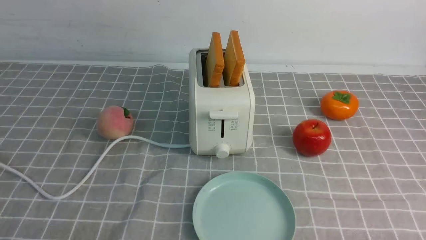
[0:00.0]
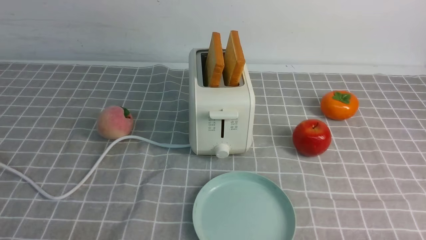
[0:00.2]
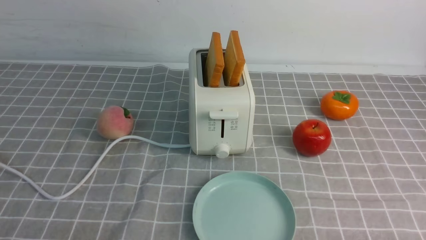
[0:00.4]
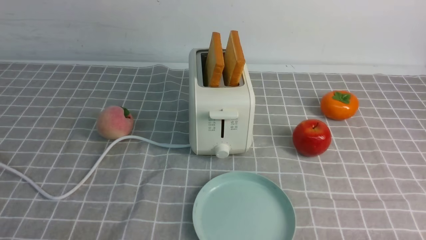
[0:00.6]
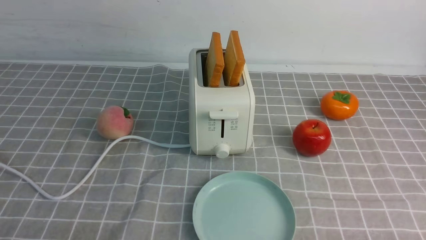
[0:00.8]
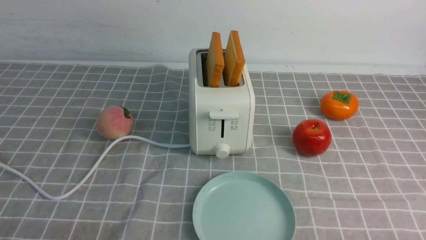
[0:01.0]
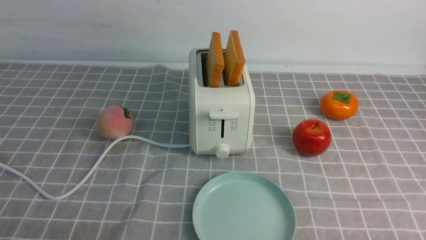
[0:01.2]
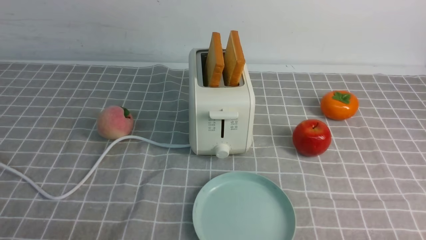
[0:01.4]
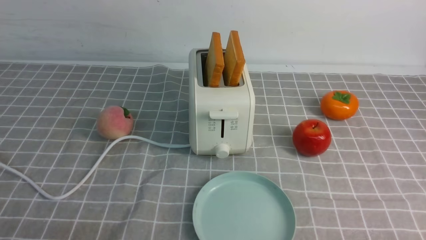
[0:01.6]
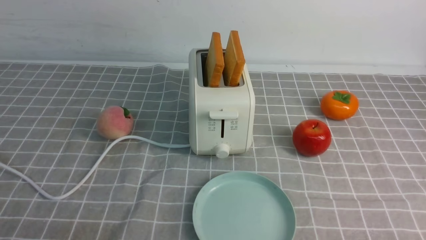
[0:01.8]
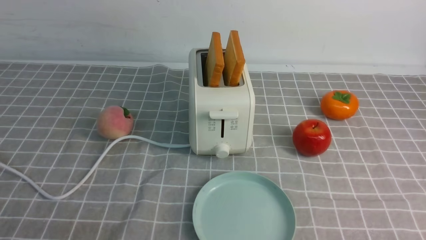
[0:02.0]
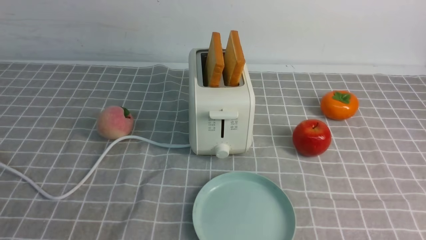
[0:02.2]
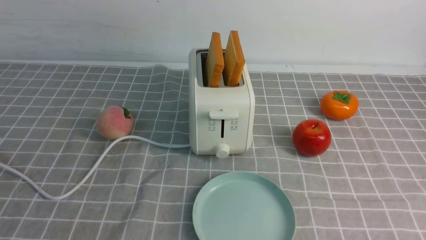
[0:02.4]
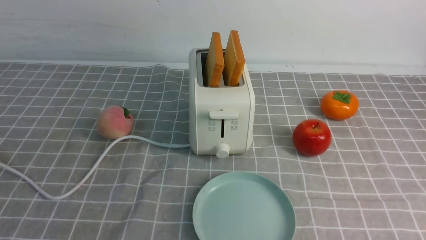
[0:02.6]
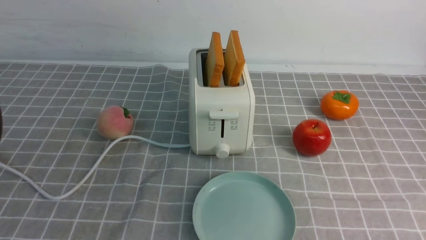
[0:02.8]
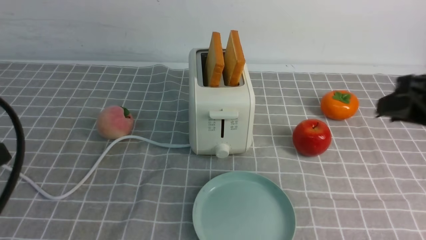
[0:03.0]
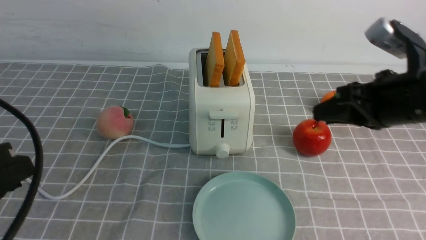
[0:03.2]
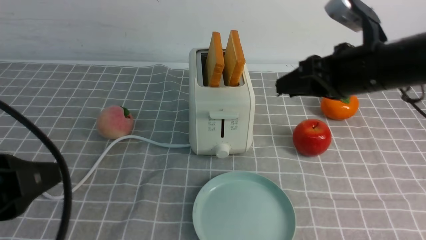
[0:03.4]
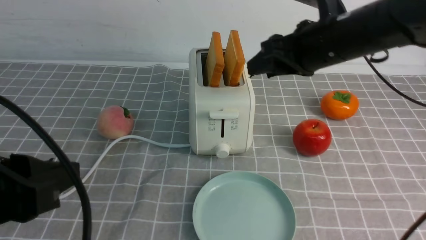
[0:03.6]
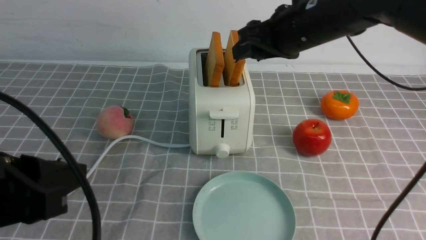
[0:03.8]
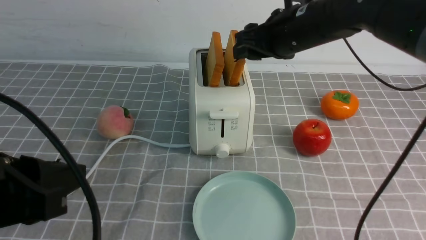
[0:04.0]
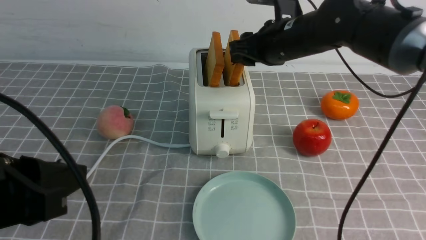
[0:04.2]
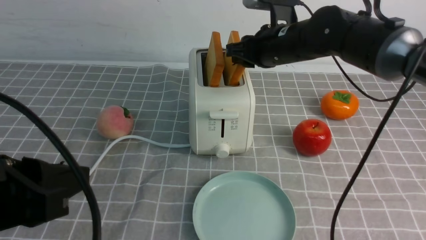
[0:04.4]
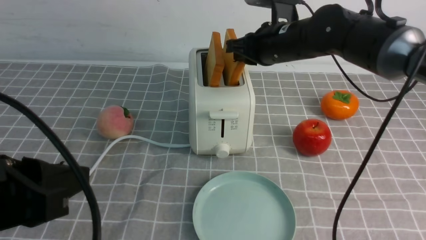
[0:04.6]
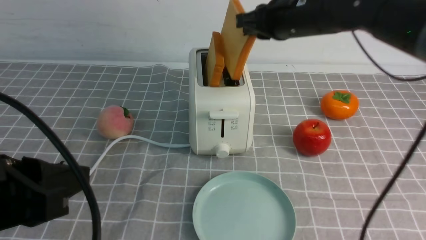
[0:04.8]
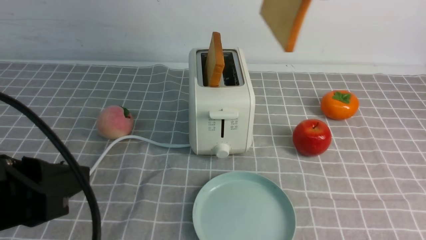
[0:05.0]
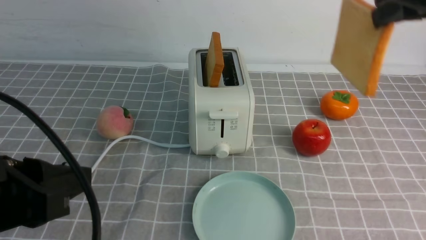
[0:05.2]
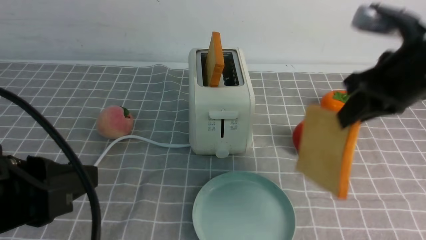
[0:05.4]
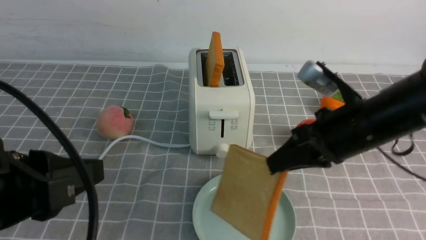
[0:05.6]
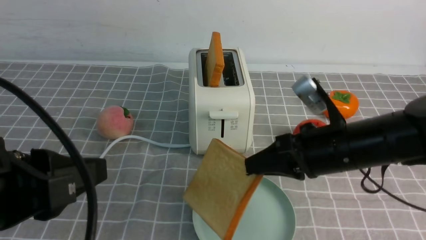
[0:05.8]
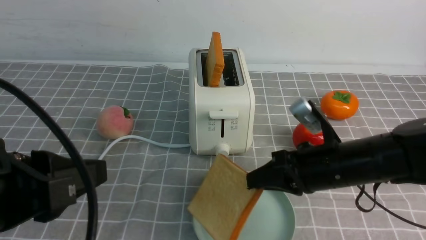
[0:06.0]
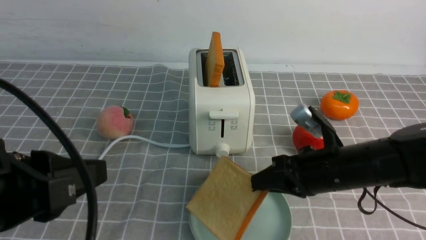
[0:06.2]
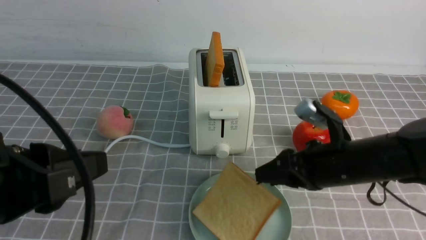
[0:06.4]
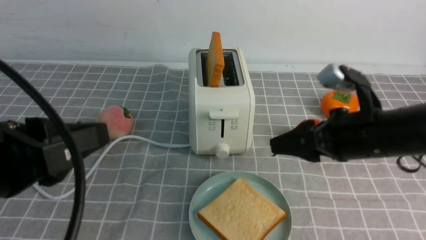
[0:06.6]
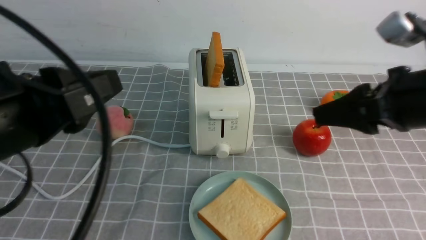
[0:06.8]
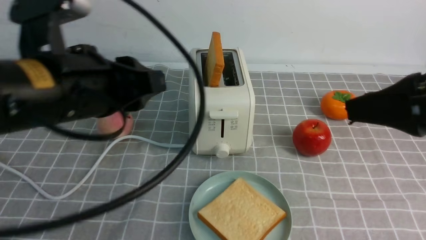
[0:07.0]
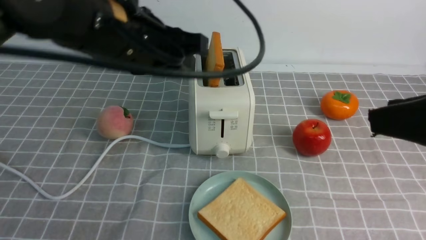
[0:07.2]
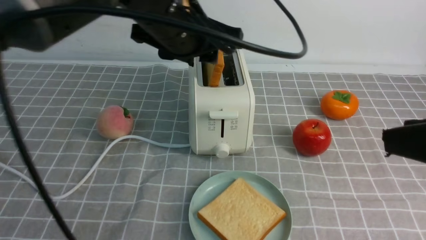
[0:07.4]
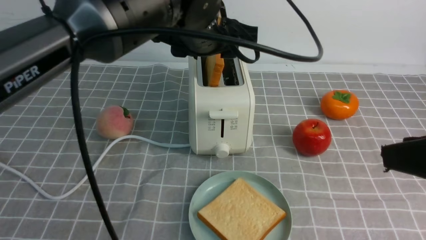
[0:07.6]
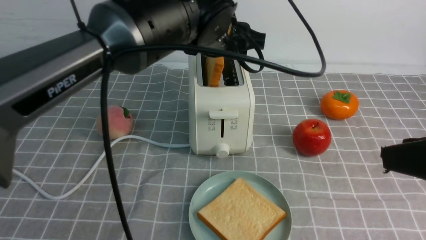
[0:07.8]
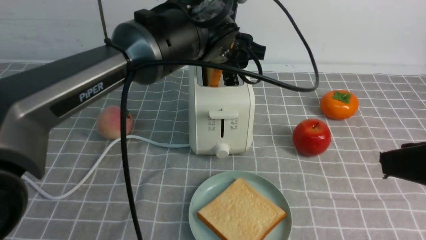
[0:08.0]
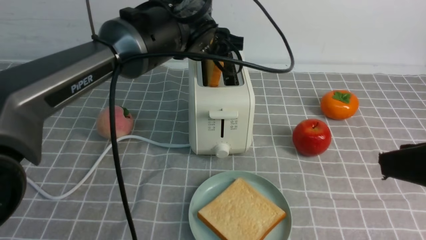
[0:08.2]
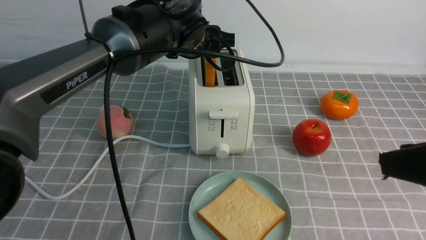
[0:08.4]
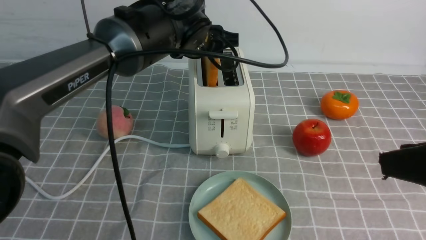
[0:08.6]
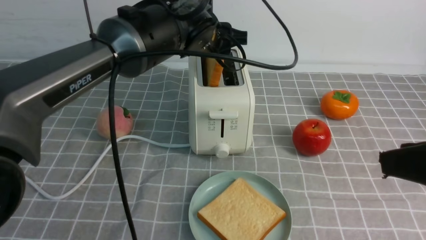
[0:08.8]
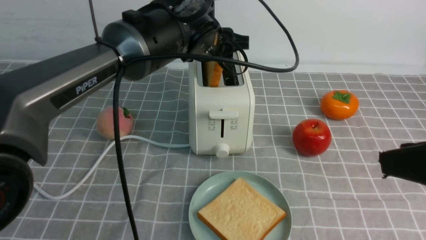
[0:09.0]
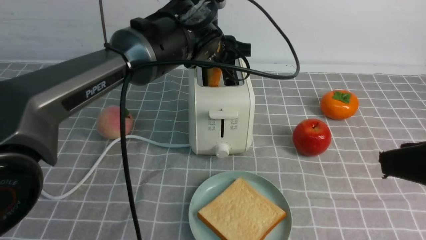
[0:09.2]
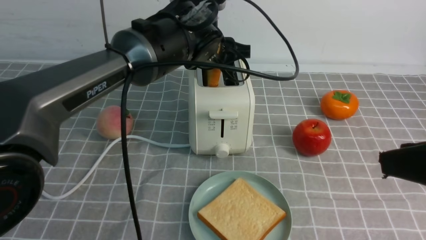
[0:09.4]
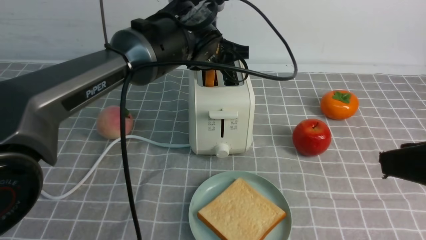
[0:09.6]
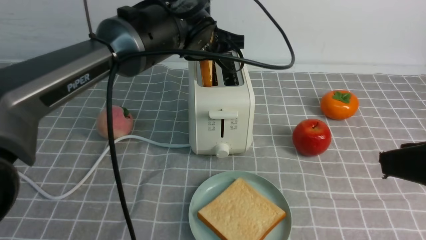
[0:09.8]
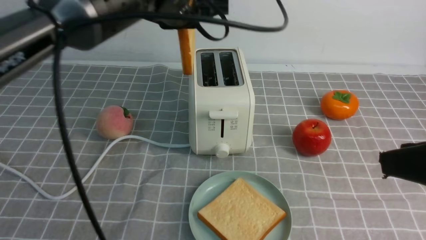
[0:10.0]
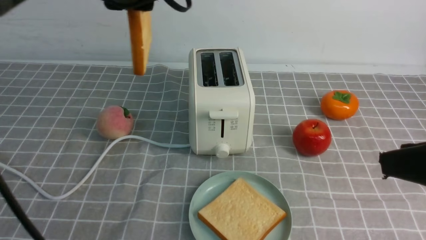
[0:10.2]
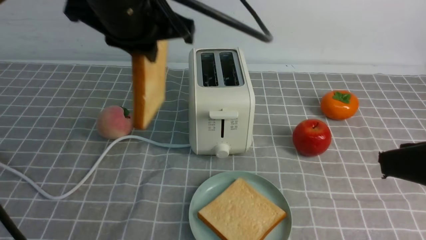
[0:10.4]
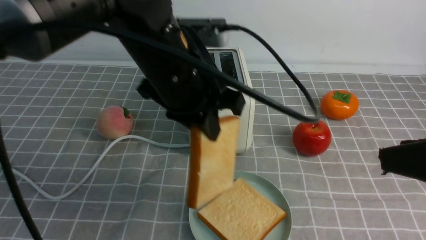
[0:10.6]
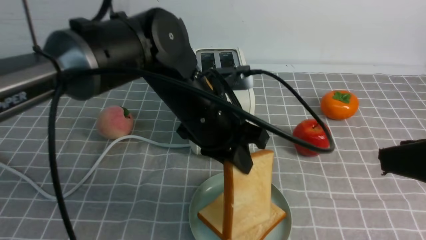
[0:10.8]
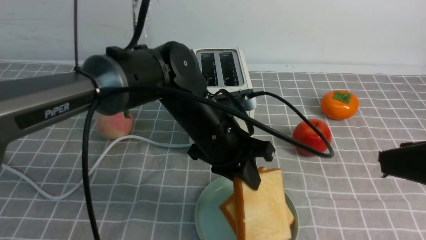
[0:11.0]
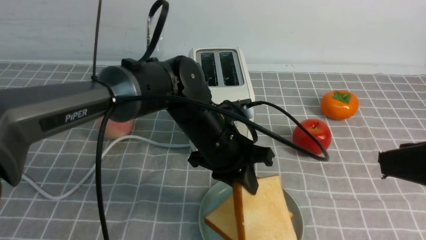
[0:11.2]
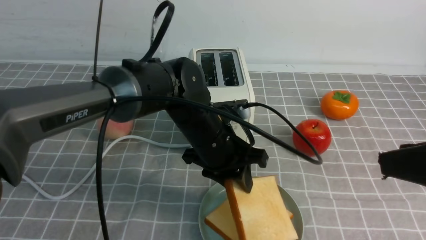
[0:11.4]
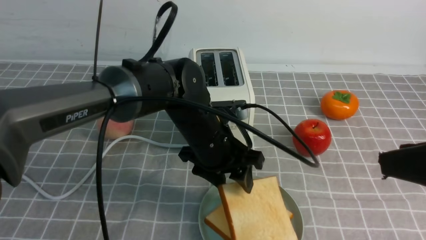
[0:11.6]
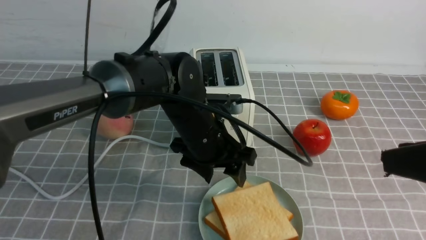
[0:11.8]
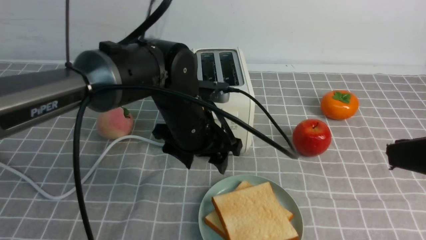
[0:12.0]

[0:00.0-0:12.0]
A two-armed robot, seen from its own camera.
Task of the whole recording: take toasted bread from bread machine on grey coffee table place on plate.
Step, 0:00.0 to 0:05.0: use the right arm to take out a slice of bread.
Step, 0:05.2 to 0:06.6: use the right arm to put a slice of bread into the plate.
Step, 0:06.8 to 0:10.0: use the left arm to take out a slice of bread.
Step, 0:10.2 to 0:11.8: use the left arm to put a slice of bread into the empty plate.
0:01.6 to 0:03.0: The right gripper heads forward and upward, covering some 25 cm. The left gripper moves upward and forward, about 15 cm.
0:03.0 to 0:04.4: The right gripper heads forward and to the left, covering approximately 25 cm, and opens, then closes once more. The left gripper ends up about 5 cm from where it was.
0:04.4 to 0:06.0: The right gripper moves backward and downward, some 20 cm.
0:06.0 to 0:07.6: The left gripper travels forward and to the right by approximately 30 cm, while the right gripper goes some 25 cm upward, backward and to the right, and opens its fingers.
0:07.6 to 0:09.0: The left gripper heads forward and downward, covering approximately 10 cm.
0:09.0 to 0:10.4: The left gripper is displaced backward, upward and to the left by some 15 cm, and closes its fingers.
0:10.4 to 0:12.0: The right gripper closes up. Meanwhile the left gripper travels downward by approximately 15 cm, and opens its fingers.

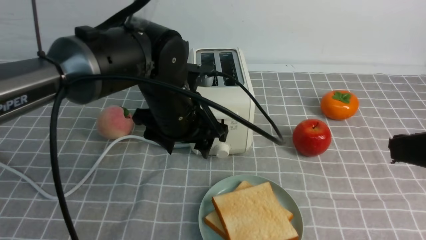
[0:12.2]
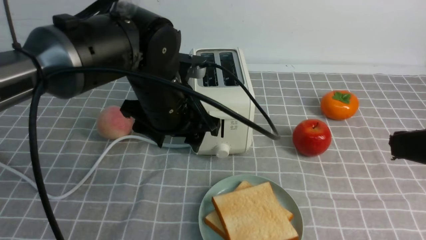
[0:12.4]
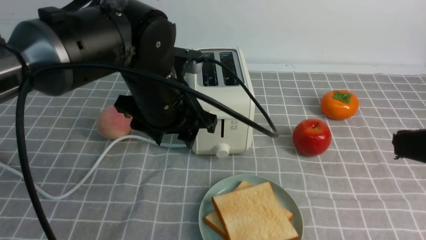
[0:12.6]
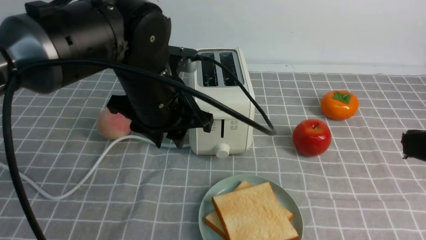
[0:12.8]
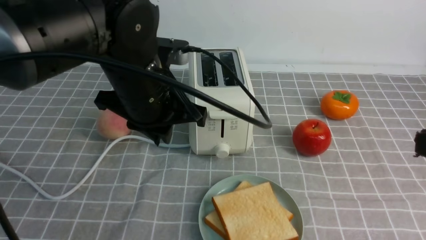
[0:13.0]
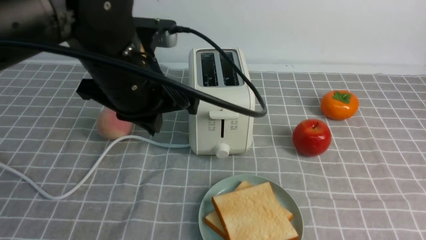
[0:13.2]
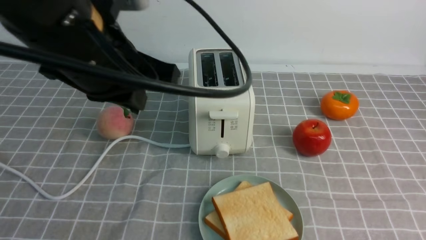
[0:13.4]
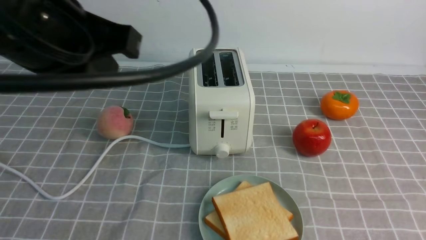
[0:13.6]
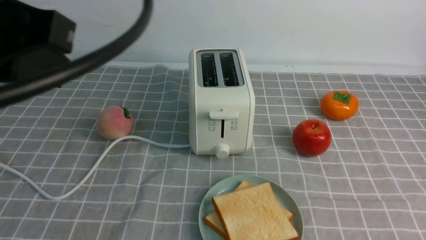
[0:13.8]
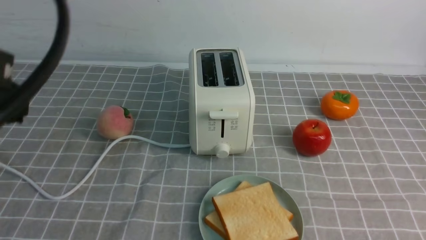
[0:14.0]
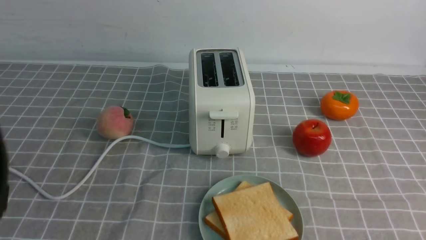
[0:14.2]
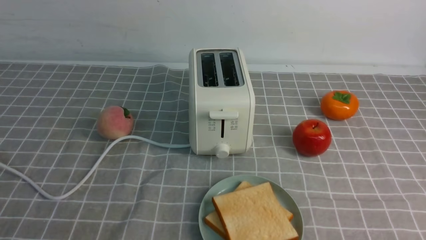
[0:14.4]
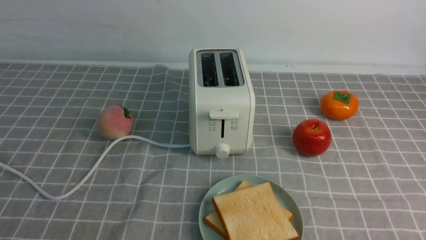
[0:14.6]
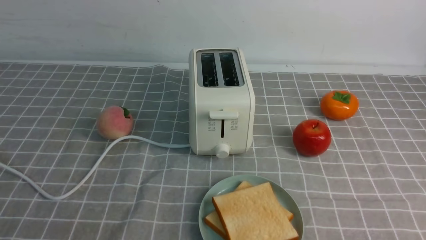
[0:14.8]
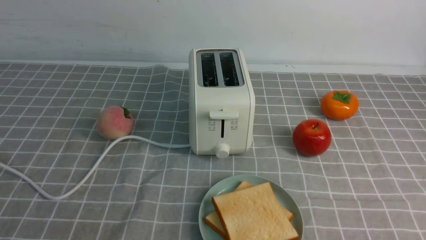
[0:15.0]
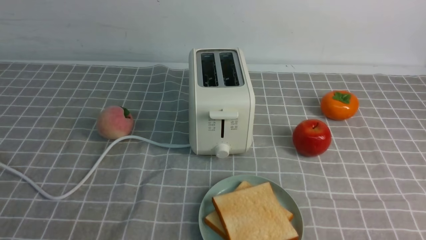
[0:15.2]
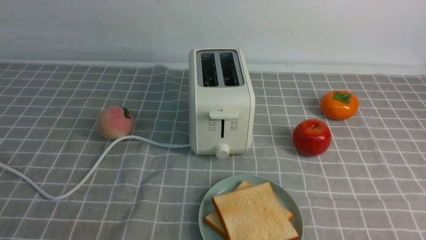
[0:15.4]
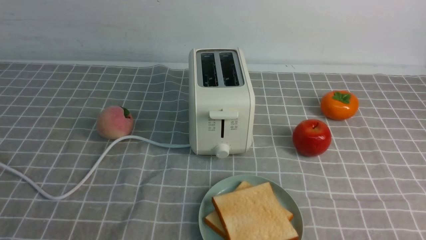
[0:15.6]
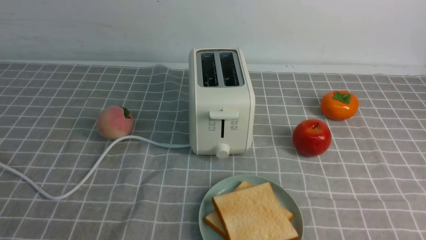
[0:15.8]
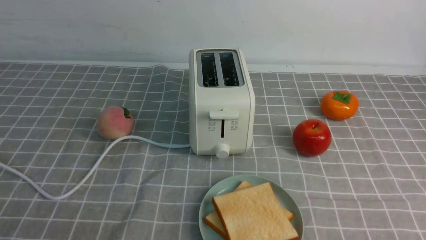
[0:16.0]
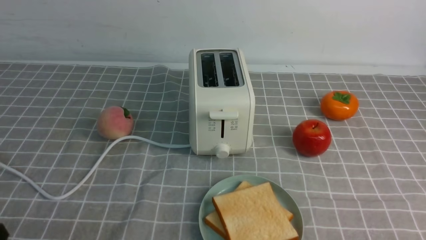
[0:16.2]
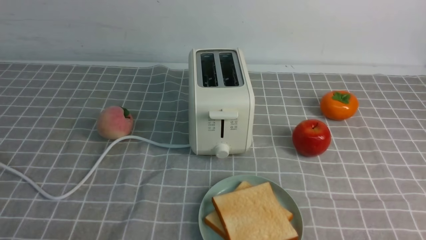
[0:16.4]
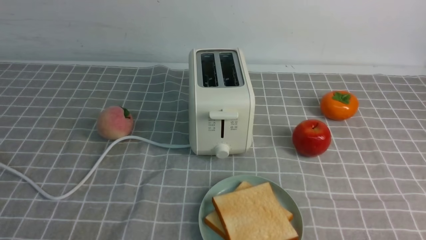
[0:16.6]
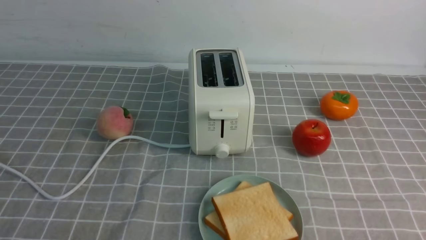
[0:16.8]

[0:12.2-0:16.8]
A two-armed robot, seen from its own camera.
Task of the whole recording: take toasted bread from bread machine on grey coffee table place on plate.
0:12.2 to 0:13.8: The left gripper goes roughly 30 cm upward, backward and to the left, and closes, while the right gripper shifts approximately 10 cm backward.
0:13.8 to 0:15.2: The left gripper shifts roughly 20 cm downward, backward and to the left.
